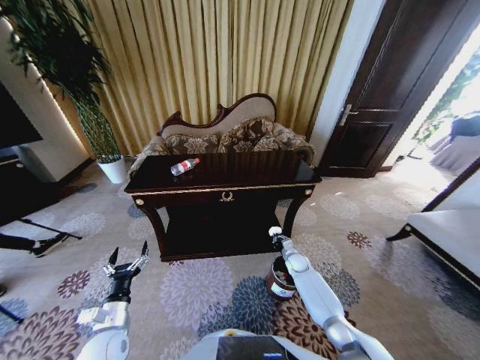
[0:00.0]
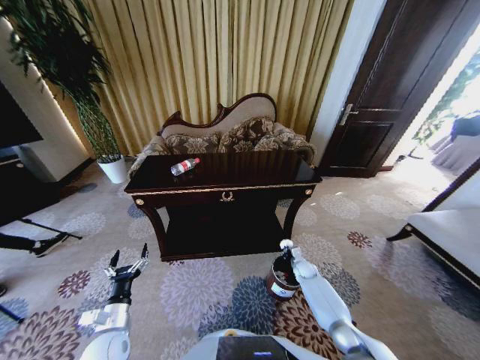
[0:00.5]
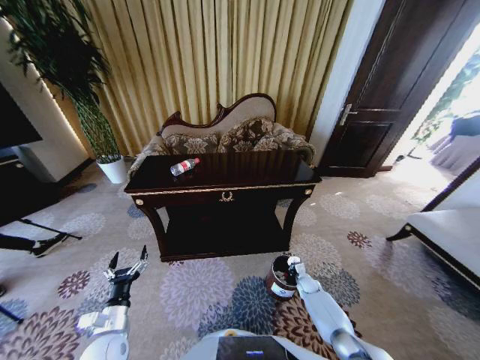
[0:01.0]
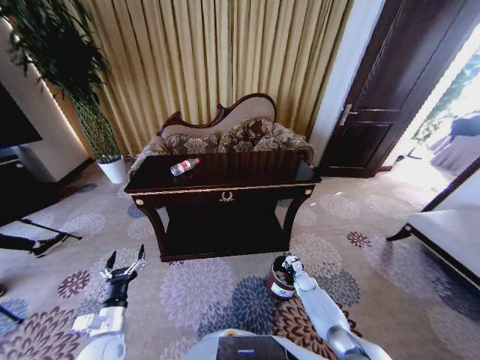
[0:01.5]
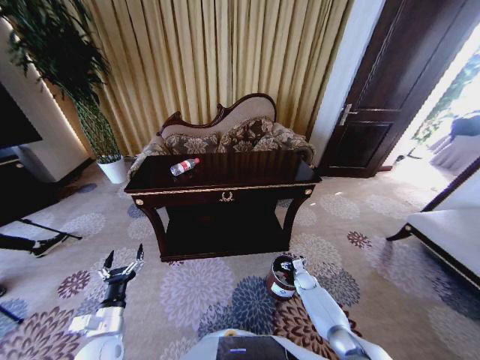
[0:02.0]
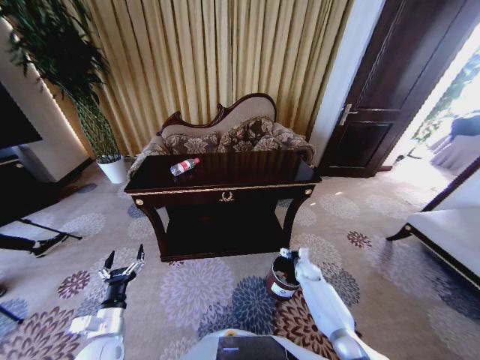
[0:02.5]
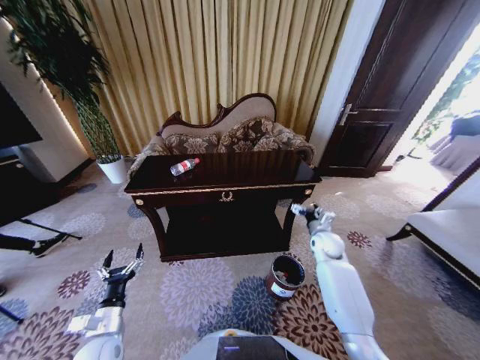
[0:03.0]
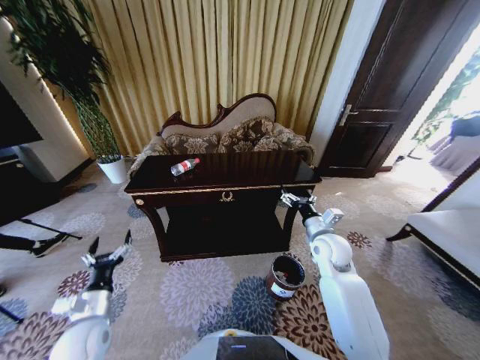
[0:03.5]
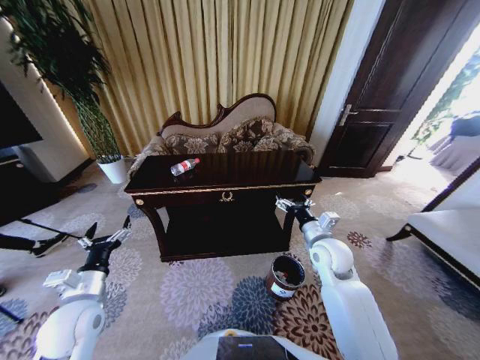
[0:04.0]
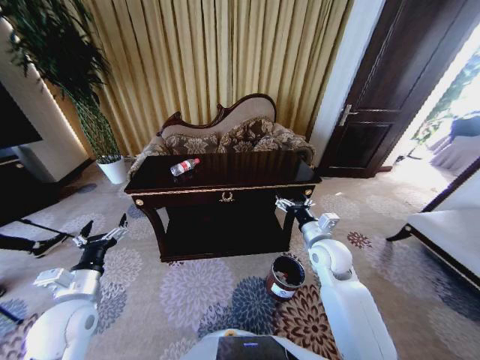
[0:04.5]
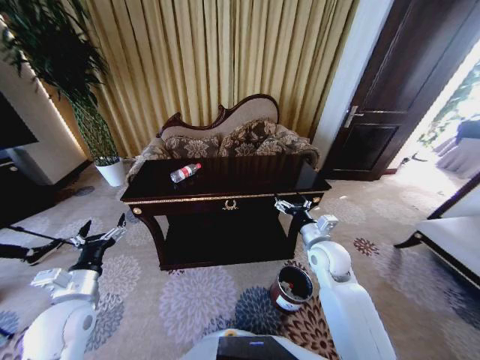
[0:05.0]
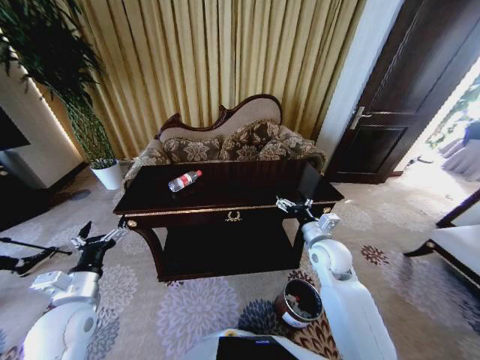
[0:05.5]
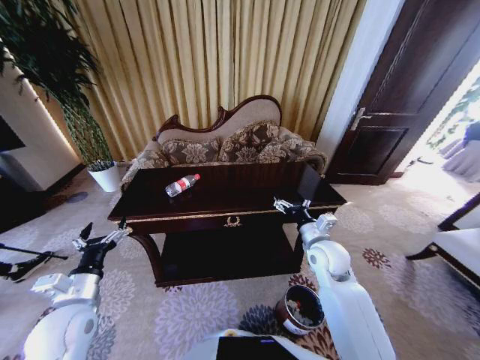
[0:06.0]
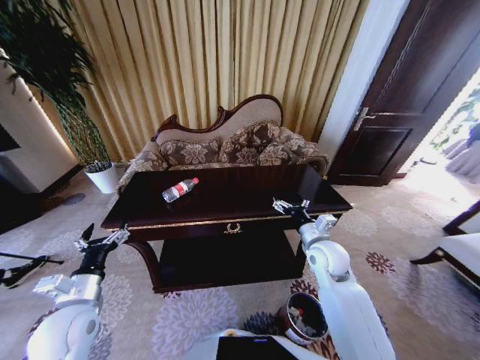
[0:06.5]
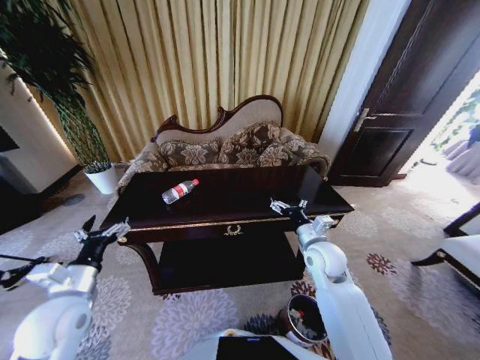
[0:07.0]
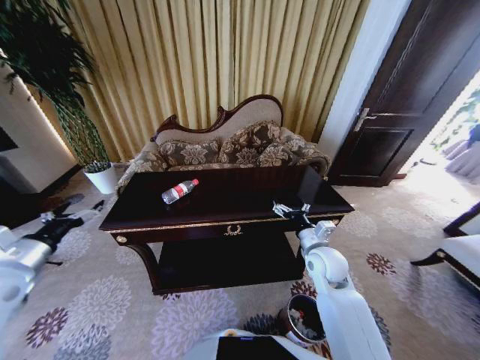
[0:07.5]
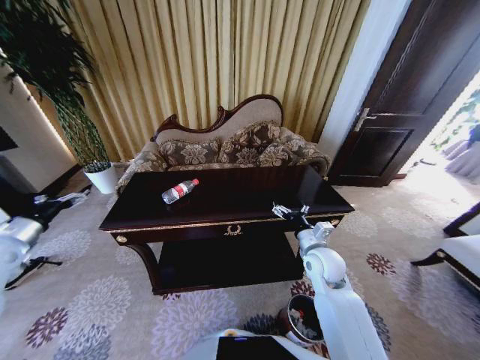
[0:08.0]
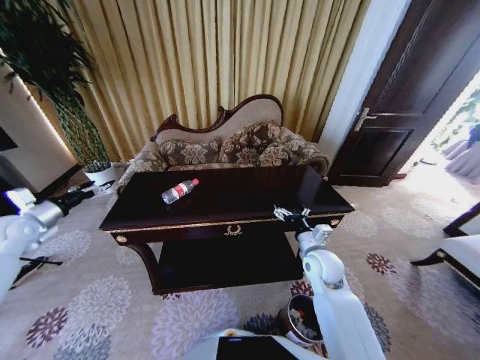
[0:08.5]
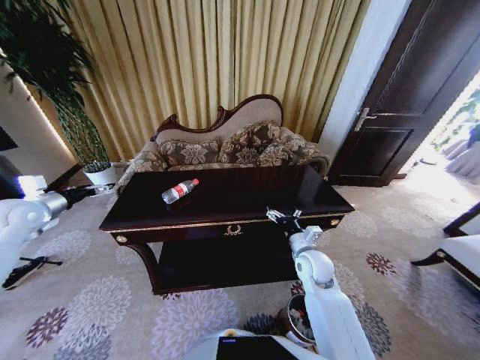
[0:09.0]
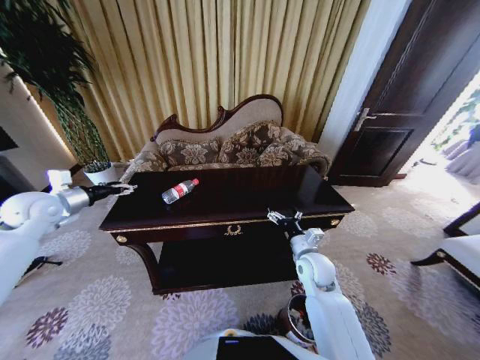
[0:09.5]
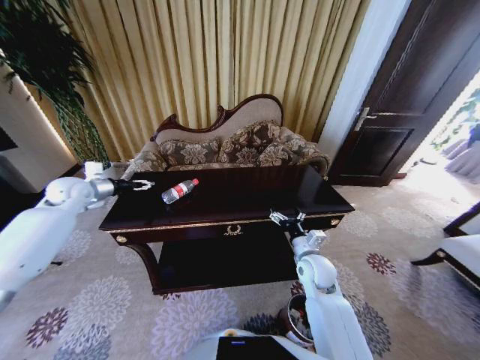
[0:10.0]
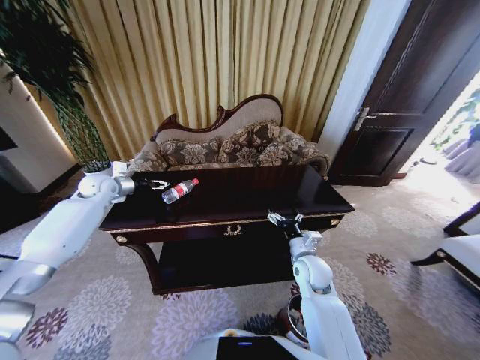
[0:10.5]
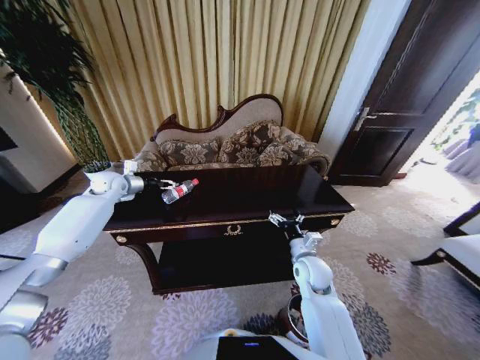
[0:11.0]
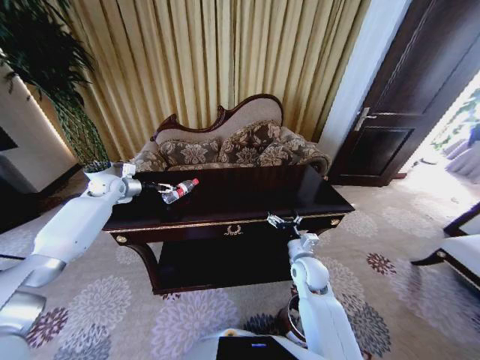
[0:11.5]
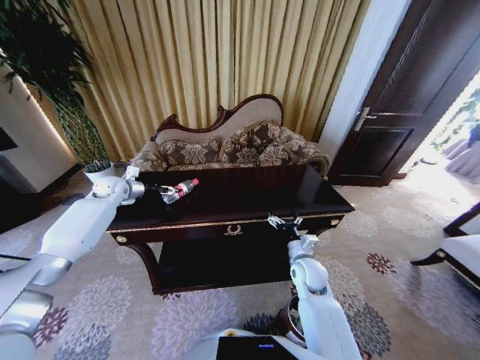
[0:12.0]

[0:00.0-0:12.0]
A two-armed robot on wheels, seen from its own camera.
Task of the whole recording: Move to the front of the table and place the trash on the table into the trash bin.
0:00.0 to 0:02.0: The right gripper travels downward and backward by approximately 10 cm, and opens up.
0:02.0 to 0:04.0: The right gripper heads upward, covering some 35 cm, while the left gripper is displaced upward and forward by roughly 15 cm.
0:06.0 to 0:08.0: The left gripper heads to the left, forward and upward, covering about 25 cm.
0:08.0 to 0:10.0: The left gripper moves forward, some 20 cm.
0:10.0 to 0:12.0: The left gripper is displaced forward and downward by approximately 10 cm.

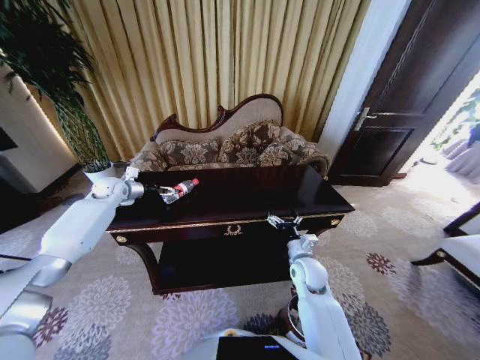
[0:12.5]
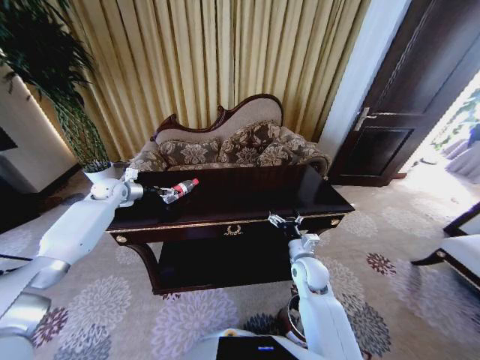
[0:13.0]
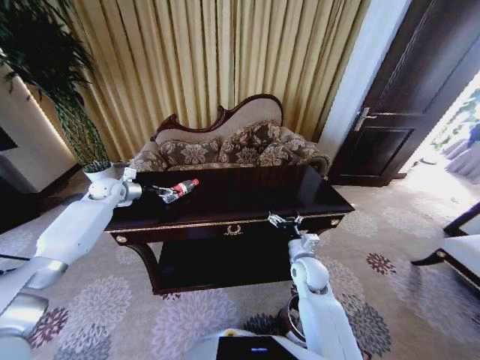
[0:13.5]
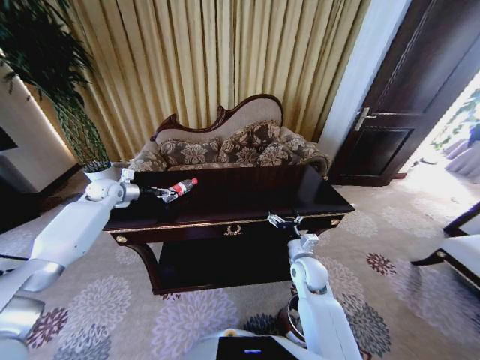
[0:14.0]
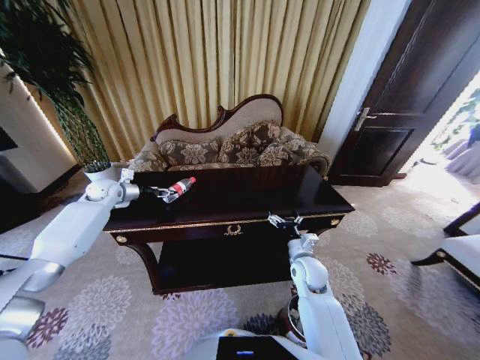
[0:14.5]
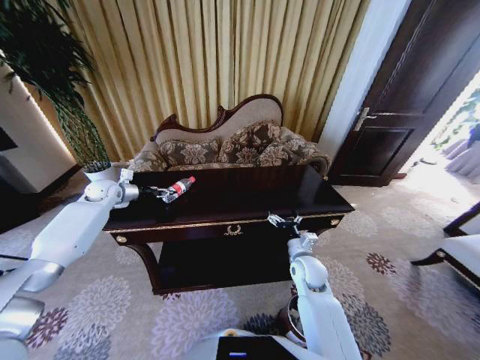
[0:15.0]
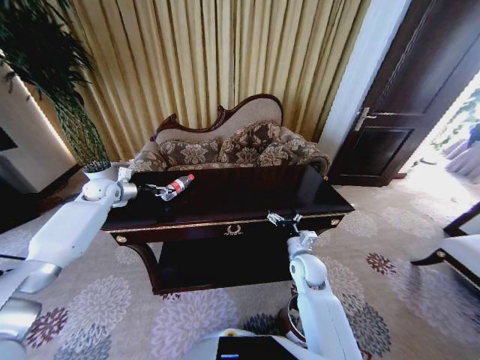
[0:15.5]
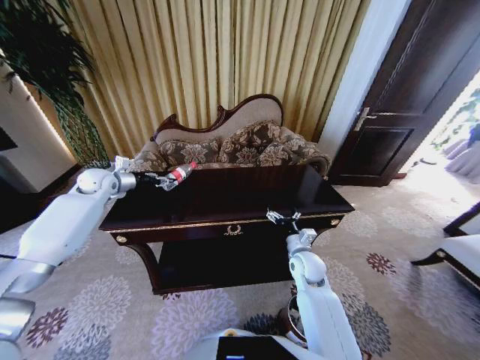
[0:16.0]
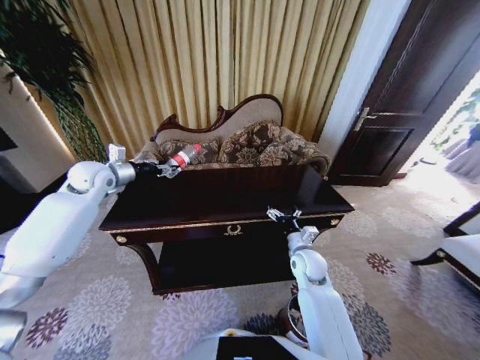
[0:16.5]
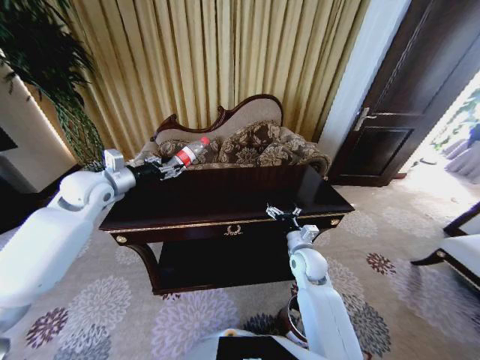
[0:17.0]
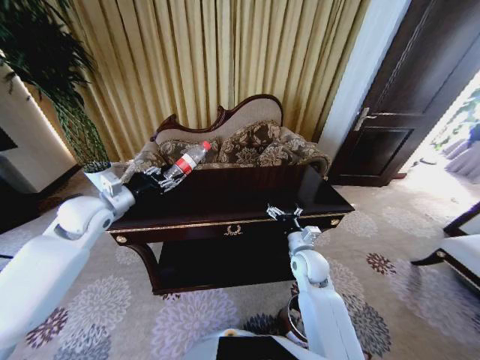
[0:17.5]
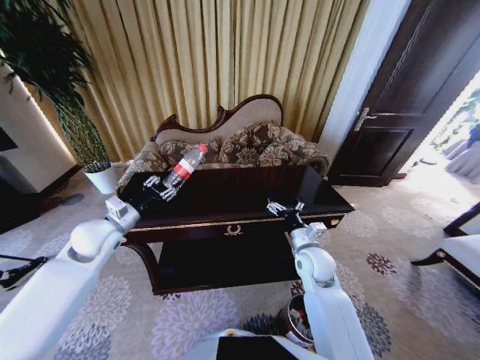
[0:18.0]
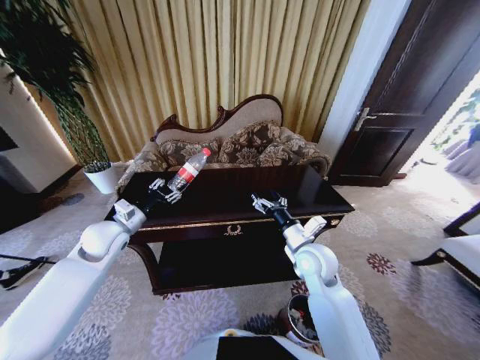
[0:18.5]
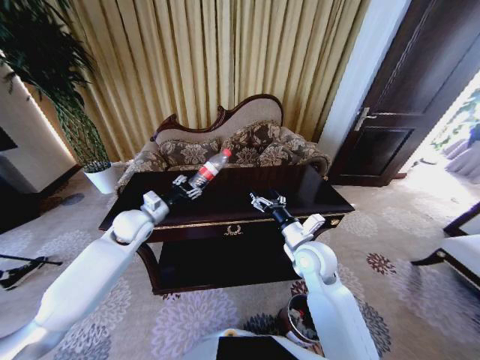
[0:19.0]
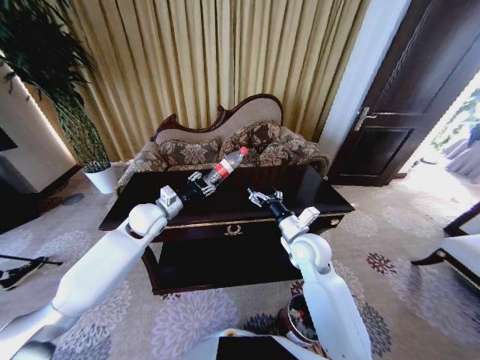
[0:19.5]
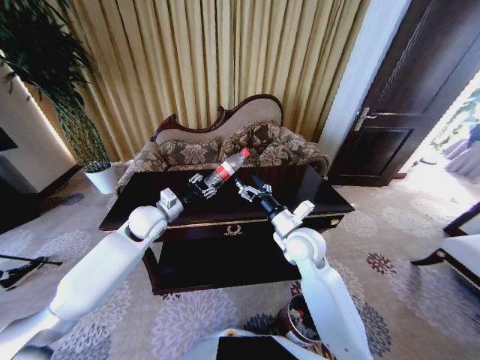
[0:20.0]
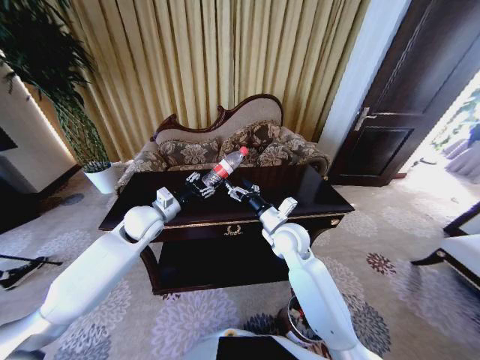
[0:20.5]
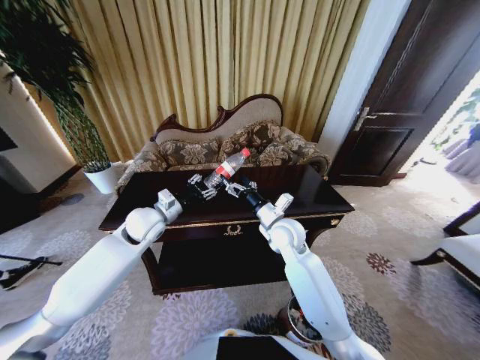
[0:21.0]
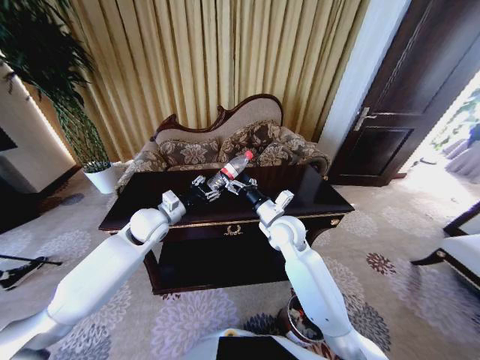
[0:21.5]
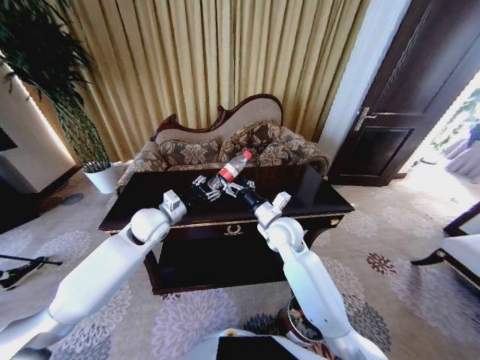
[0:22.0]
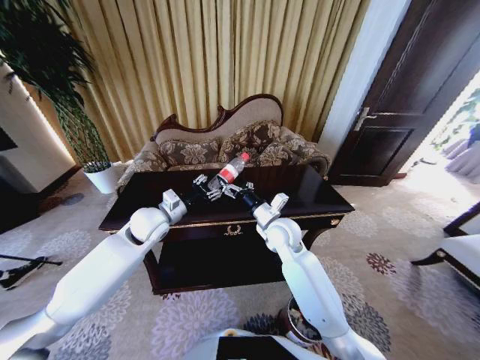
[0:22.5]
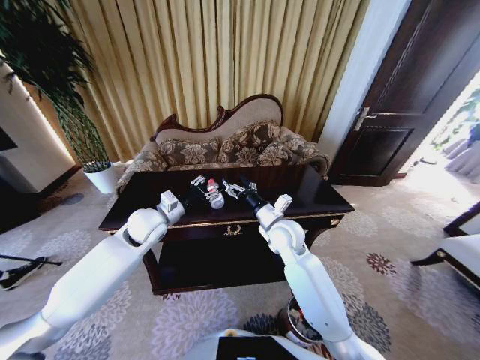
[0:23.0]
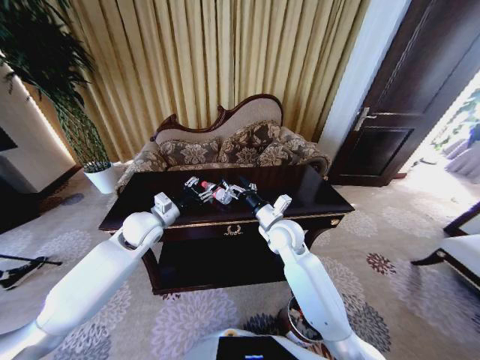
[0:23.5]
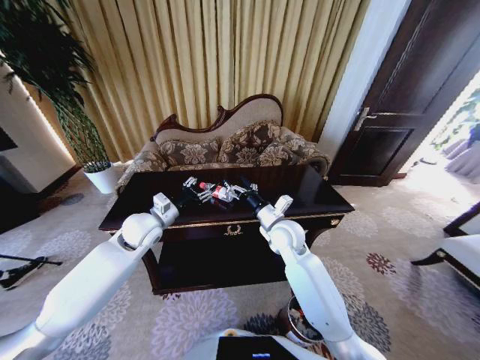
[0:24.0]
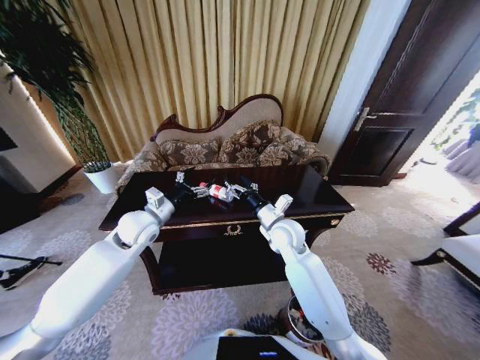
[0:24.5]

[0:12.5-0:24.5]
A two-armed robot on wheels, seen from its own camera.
Task of the whole recording: Move to the front of the table and place the trash on the table into the trash bin.
0:12.5 to 0:14.5: The left gripper closes.
0:14.5 to 0:16.5: The left gripper heads upward and backward, covering approximately 10 cm.
0:16.5 to 0:18.5: The left gripper travels backward, downward and to the right by approximately 15 cm. Meanwhile the right gripper goes some 10 cm upward.
0:18.5 to 0:20.5: The right gripper travels forward and to the left by about 10 cm, while the left gripper goes some 10 cm to the right.
0:20.5 to 0:22.5: The grippers move only a little.
0:22.5 to 0:24.5: The left gripper opens.

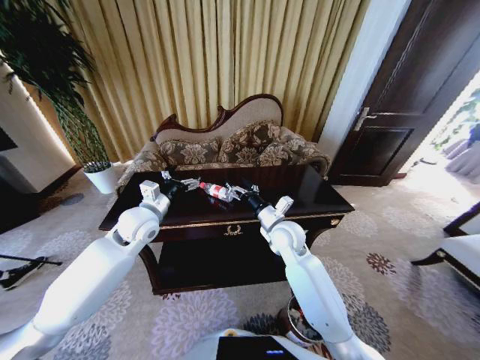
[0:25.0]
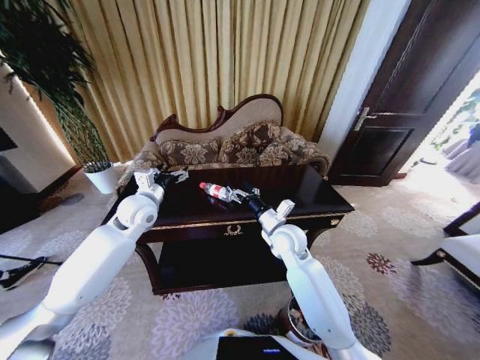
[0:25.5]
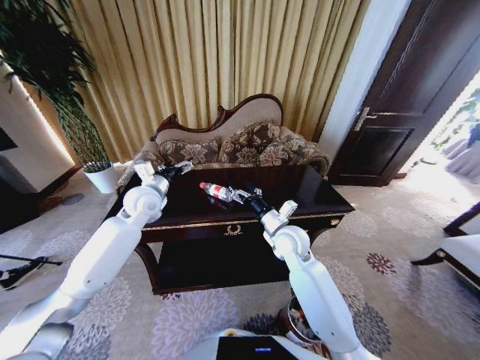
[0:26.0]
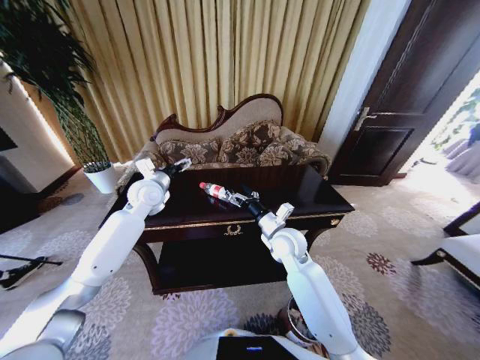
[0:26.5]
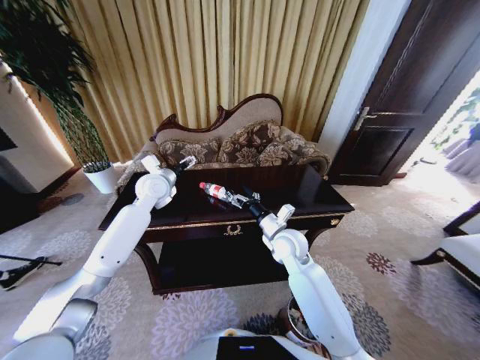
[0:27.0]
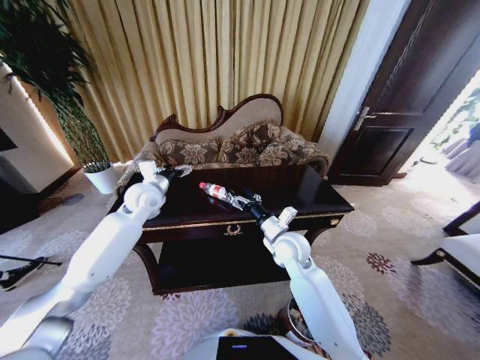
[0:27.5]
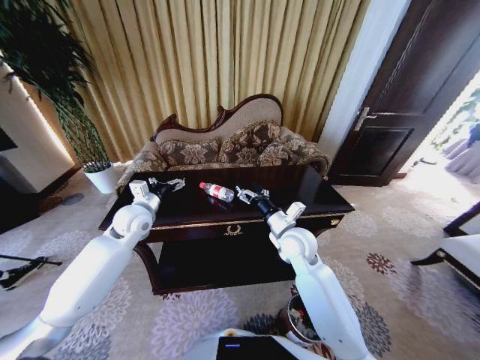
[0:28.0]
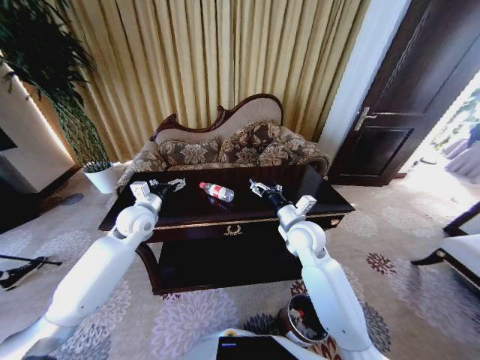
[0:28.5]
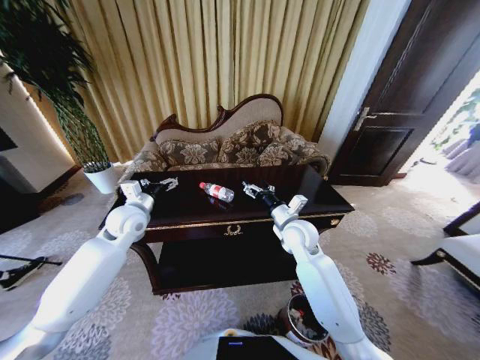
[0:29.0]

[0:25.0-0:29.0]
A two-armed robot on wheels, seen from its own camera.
Task of the whole recording: Move to the front of the table and place the trash on the table into the trash bin.
0:25.0 to 0:27.0: The left gripper moves forward, some 10 cm.
0:27.0 to 0:29.0: The left gripper heads backward and to the left, covering about 10 cm.
